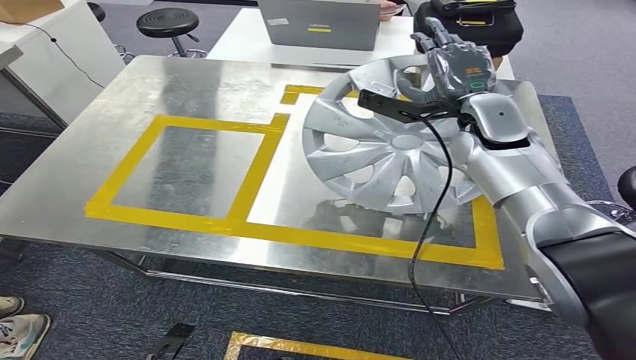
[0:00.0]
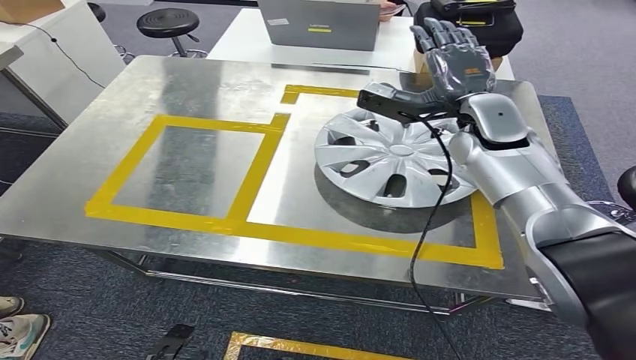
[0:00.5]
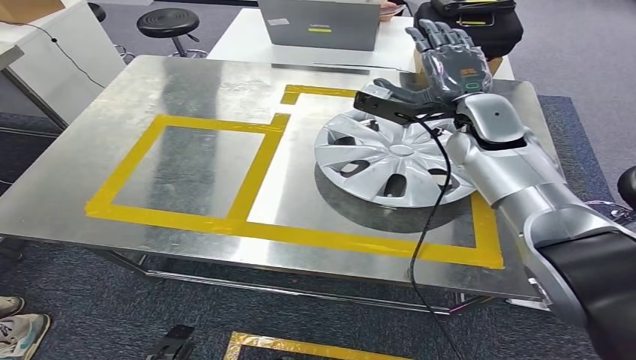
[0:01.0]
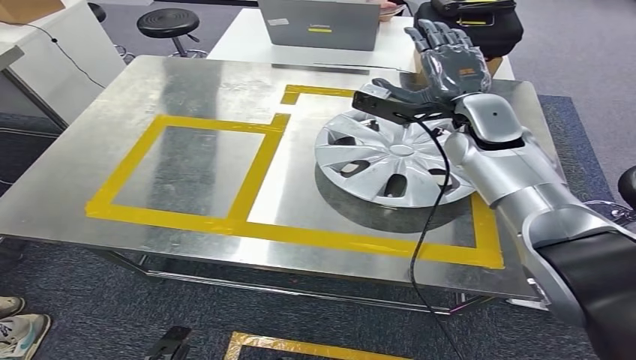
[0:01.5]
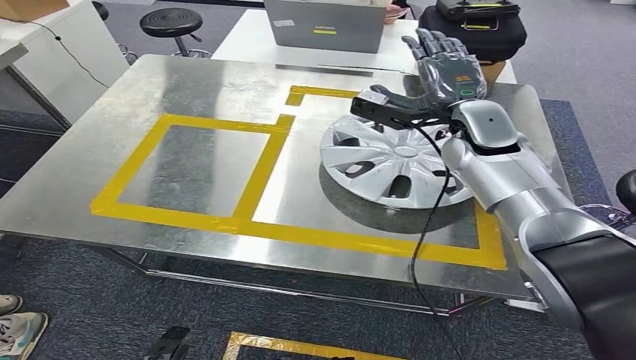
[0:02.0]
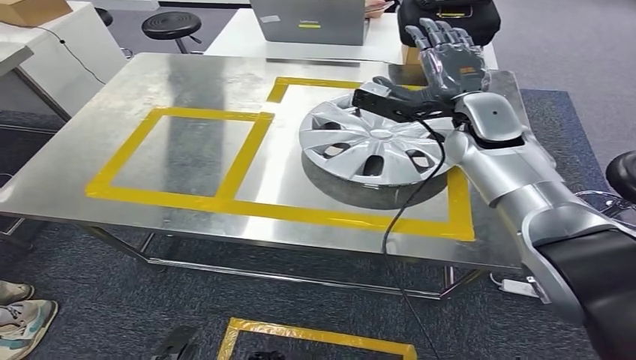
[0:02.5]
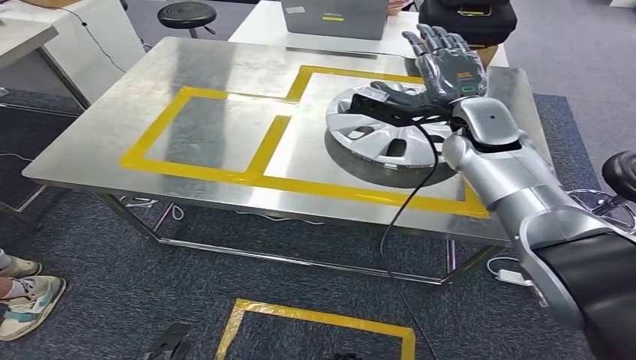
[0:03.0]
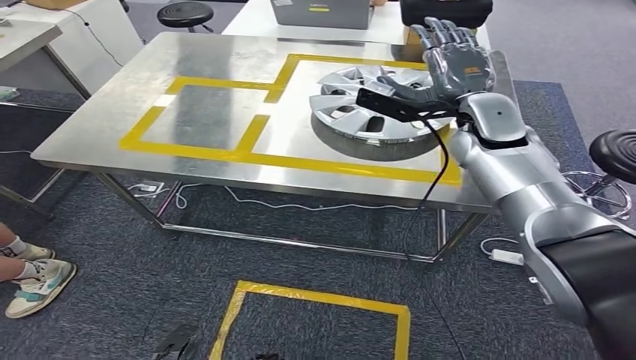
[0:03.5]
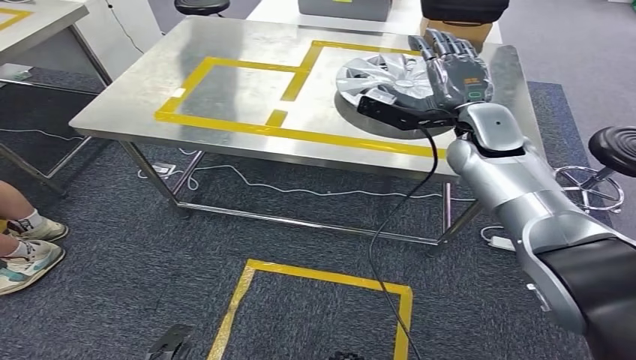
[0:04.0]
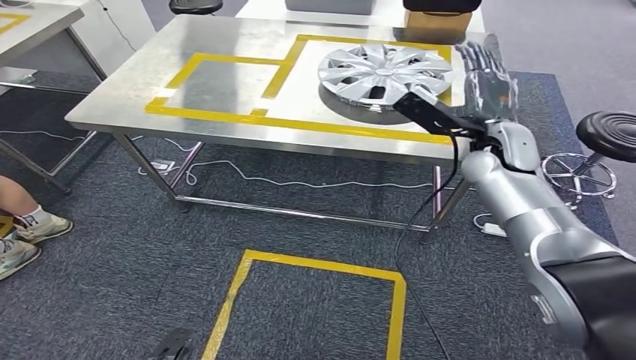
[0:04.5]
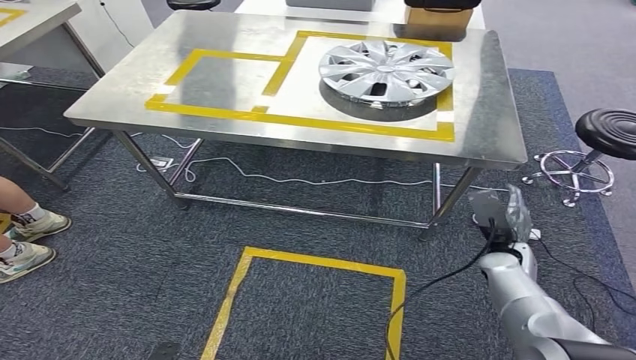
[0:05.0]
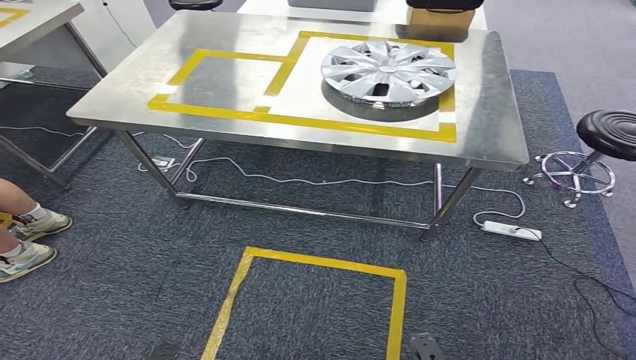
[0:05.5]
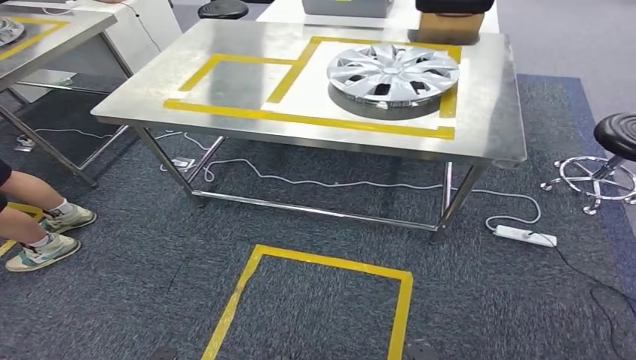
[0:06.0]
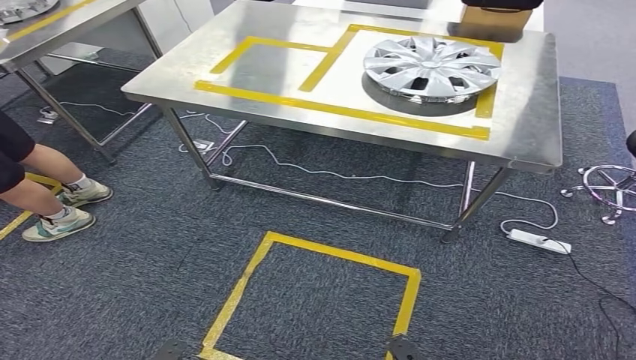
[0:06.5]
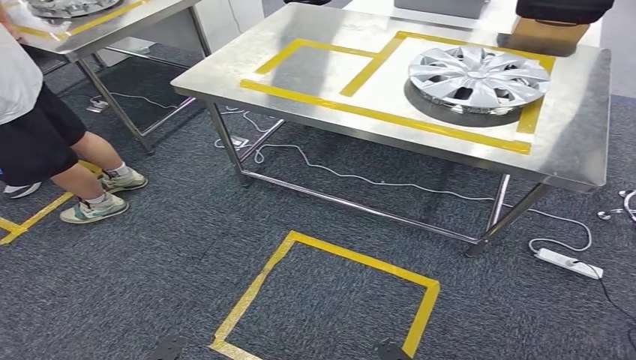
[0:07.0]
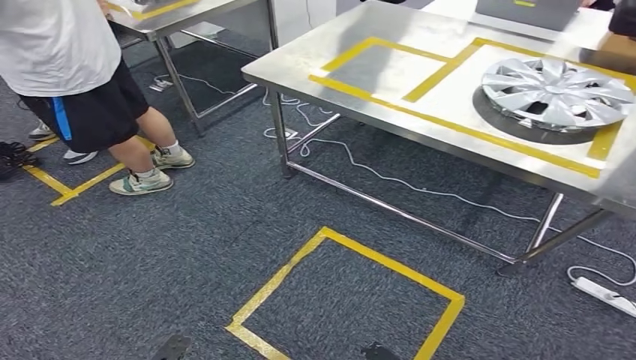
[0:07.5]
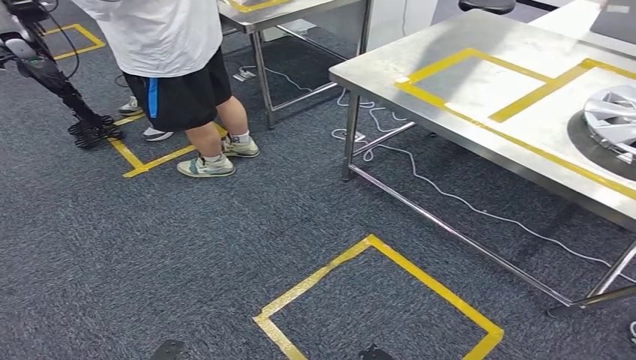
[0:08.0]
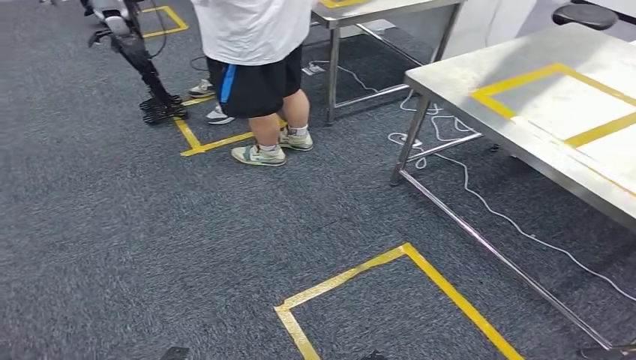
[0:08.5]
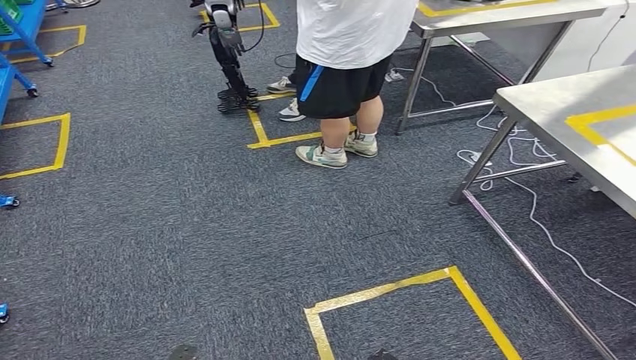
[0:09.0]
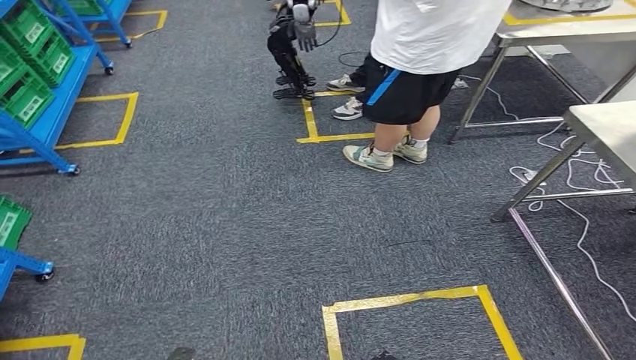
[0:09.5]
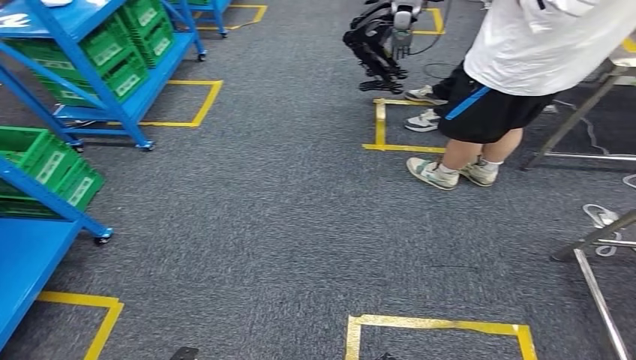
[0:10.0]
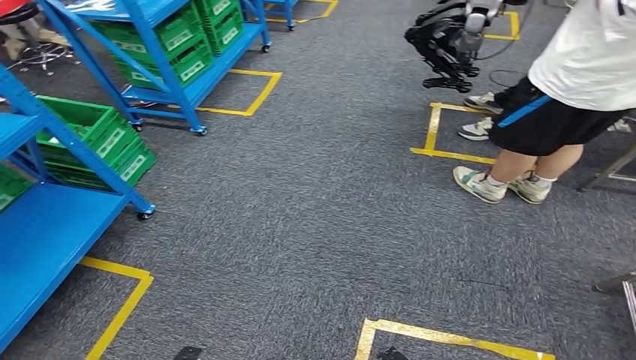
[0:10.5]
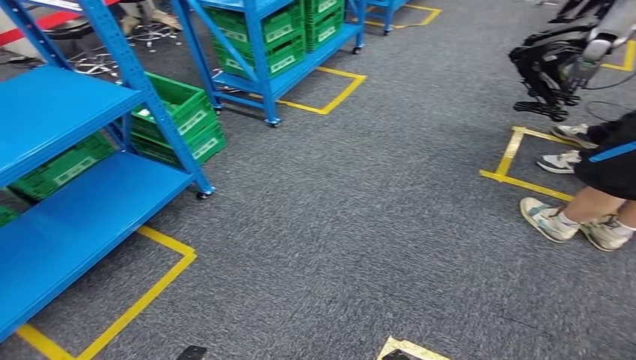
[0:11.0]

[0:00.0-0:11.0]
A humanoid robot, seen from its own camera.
Step, 0:00.0 to 0:02.5: Insert the small component into the corresponding slot on the workbench.

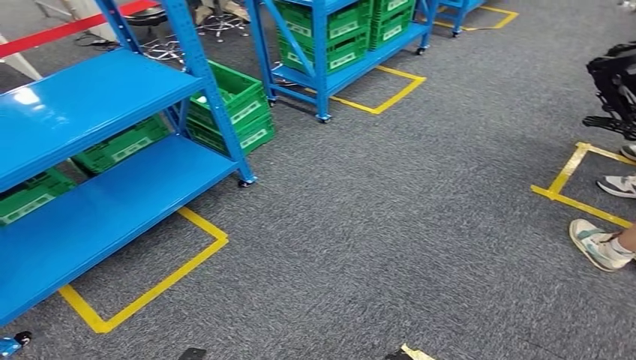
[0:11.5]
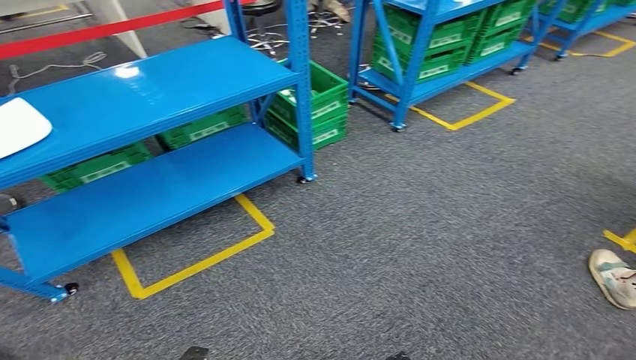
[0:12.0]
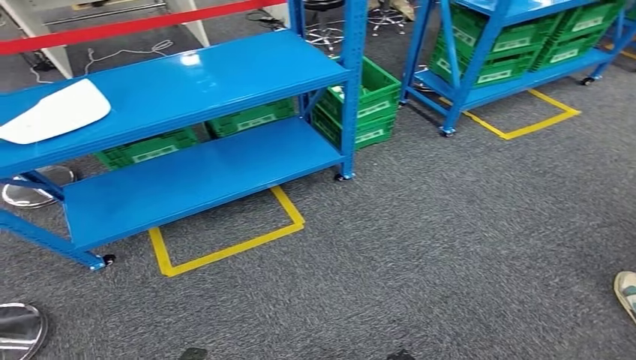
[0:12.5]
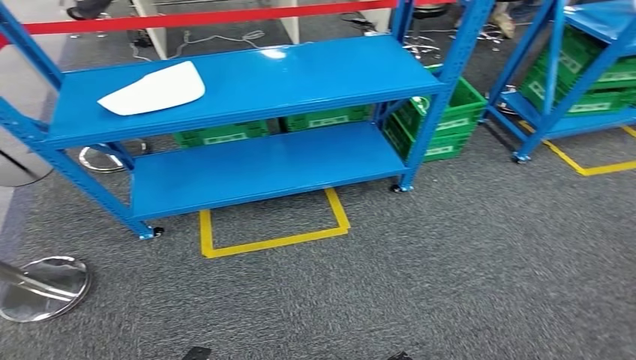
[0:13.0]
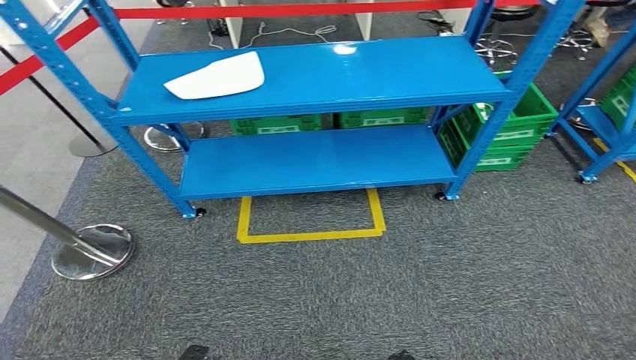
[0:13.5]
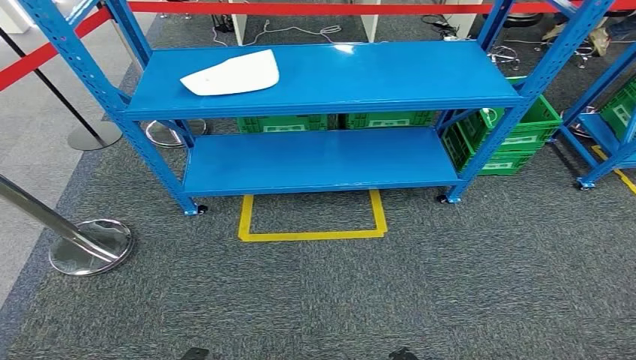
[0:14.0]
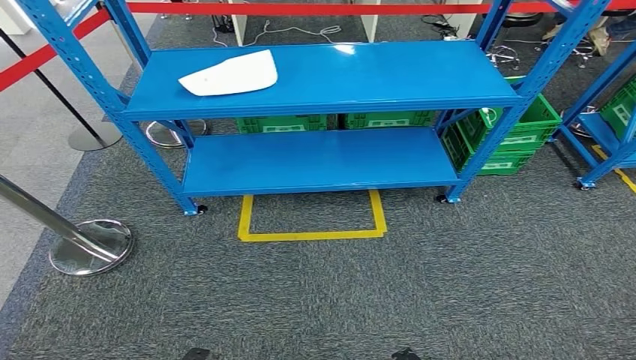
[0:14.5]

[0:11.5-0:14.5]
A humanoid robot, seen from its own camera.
Step, 0:11.5 to 0:14.5: Move to the initial position of the workbench.
